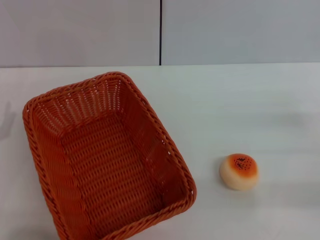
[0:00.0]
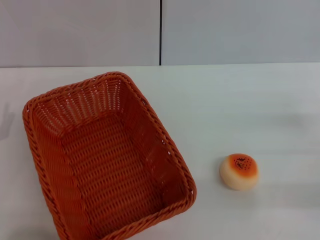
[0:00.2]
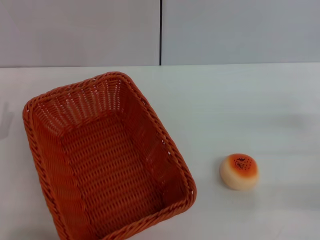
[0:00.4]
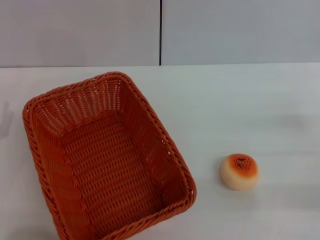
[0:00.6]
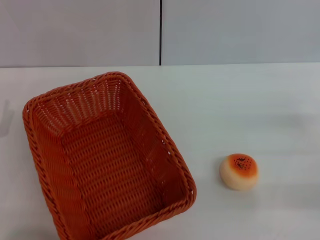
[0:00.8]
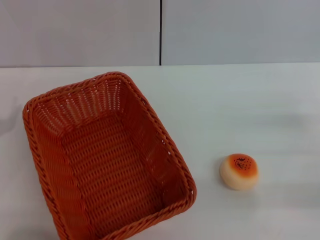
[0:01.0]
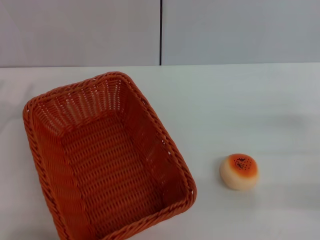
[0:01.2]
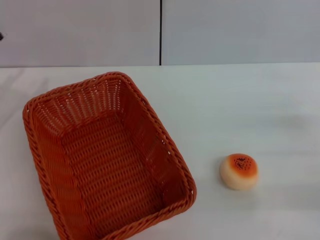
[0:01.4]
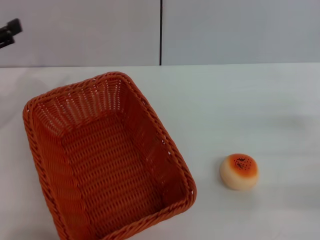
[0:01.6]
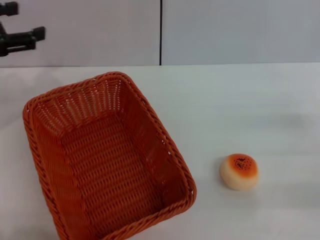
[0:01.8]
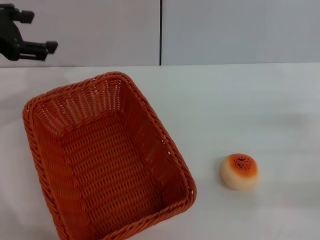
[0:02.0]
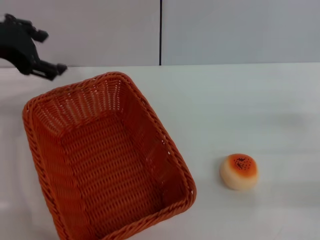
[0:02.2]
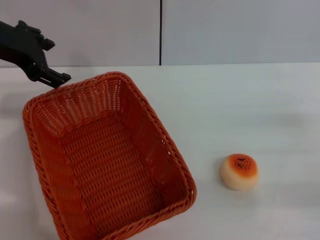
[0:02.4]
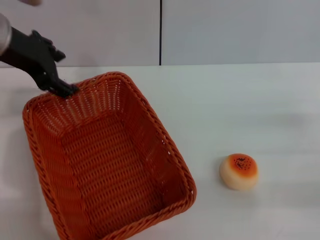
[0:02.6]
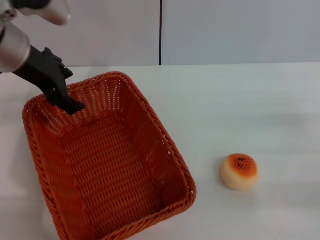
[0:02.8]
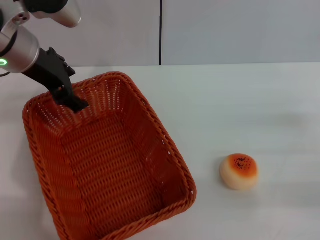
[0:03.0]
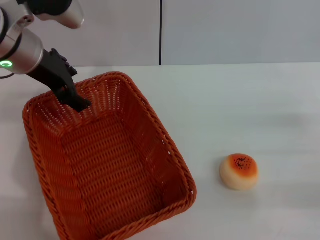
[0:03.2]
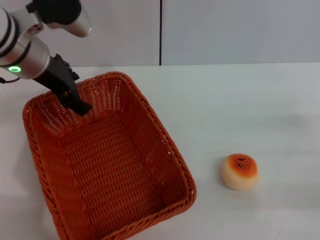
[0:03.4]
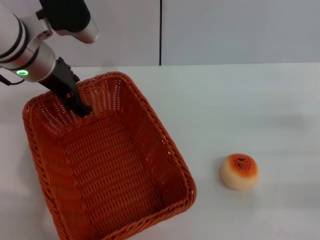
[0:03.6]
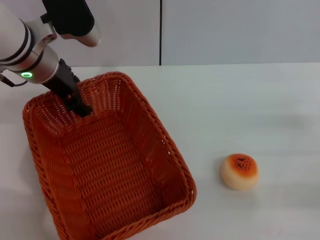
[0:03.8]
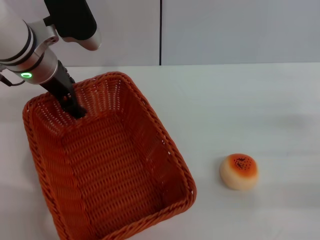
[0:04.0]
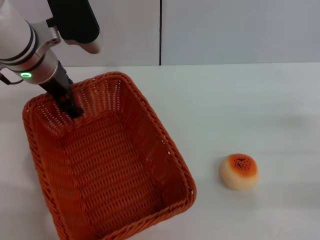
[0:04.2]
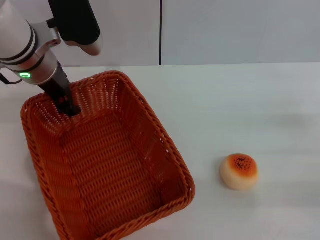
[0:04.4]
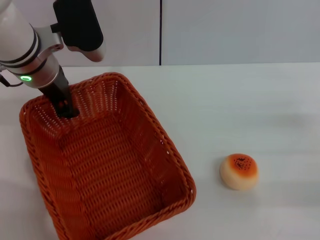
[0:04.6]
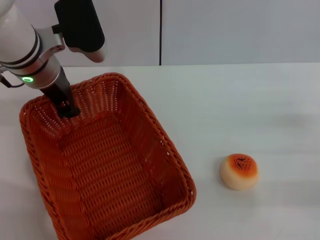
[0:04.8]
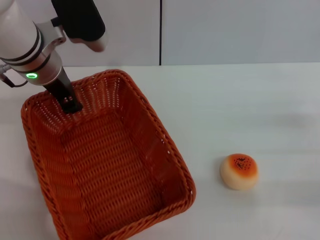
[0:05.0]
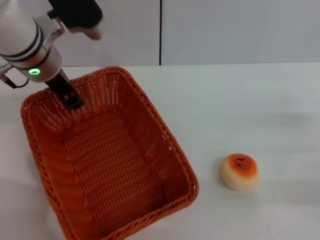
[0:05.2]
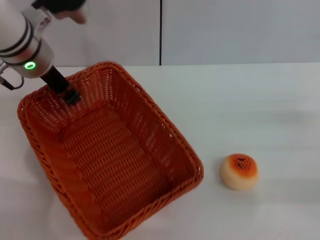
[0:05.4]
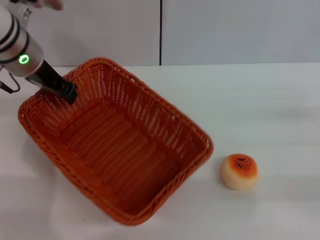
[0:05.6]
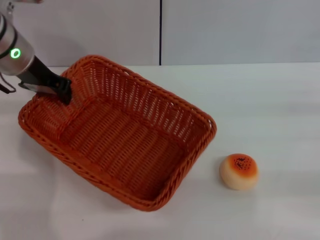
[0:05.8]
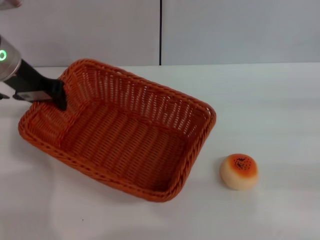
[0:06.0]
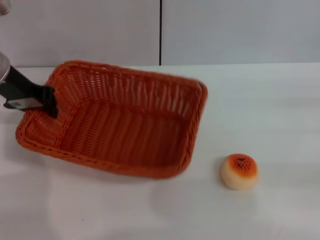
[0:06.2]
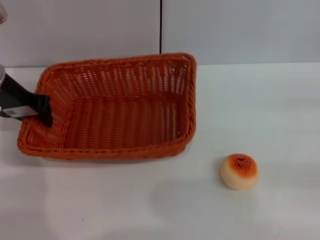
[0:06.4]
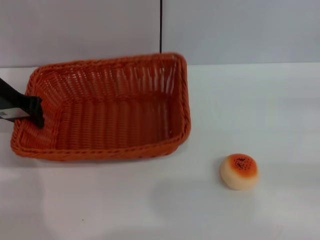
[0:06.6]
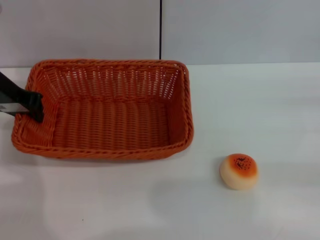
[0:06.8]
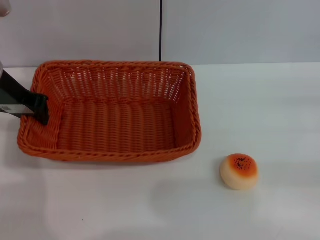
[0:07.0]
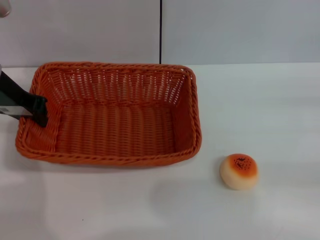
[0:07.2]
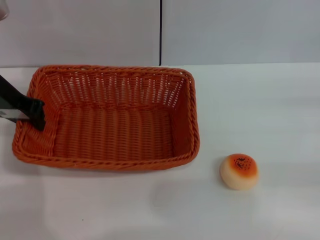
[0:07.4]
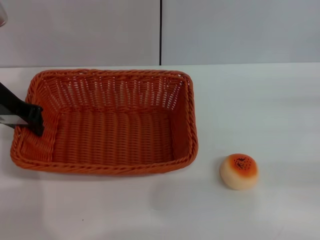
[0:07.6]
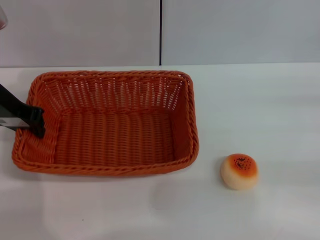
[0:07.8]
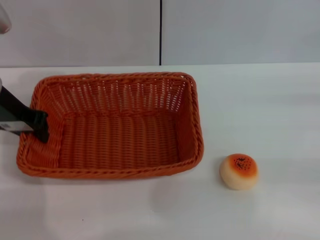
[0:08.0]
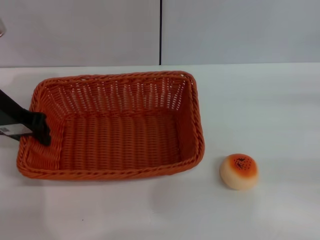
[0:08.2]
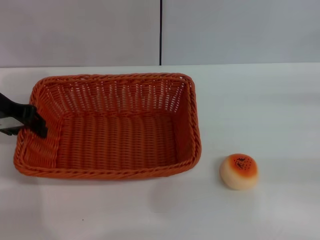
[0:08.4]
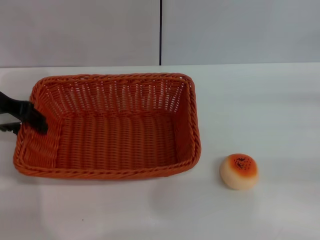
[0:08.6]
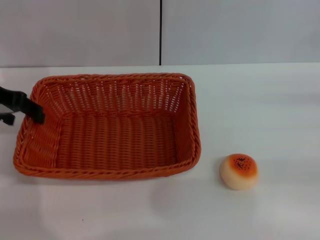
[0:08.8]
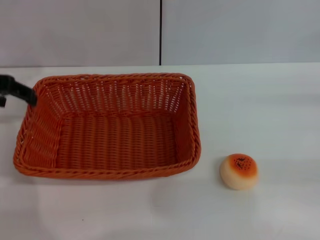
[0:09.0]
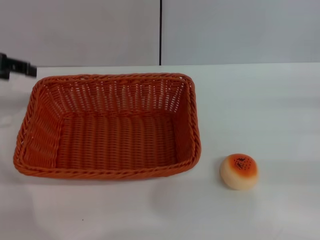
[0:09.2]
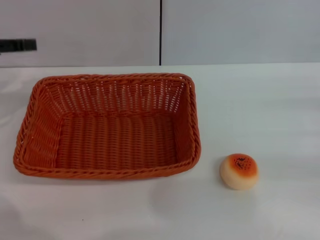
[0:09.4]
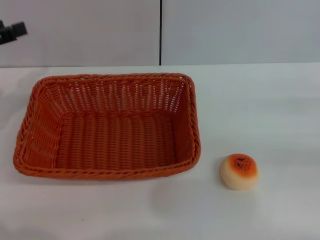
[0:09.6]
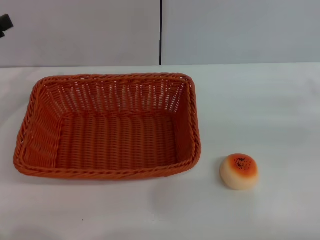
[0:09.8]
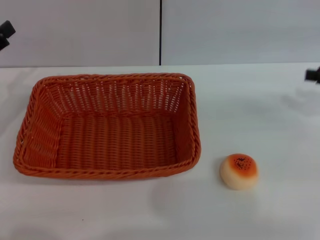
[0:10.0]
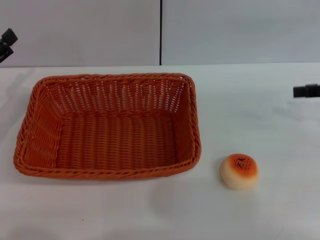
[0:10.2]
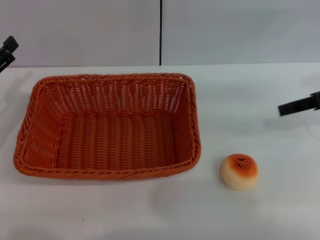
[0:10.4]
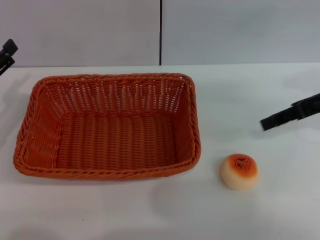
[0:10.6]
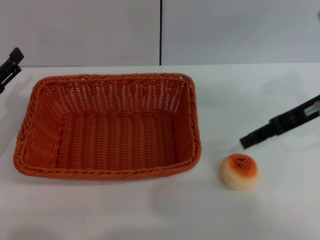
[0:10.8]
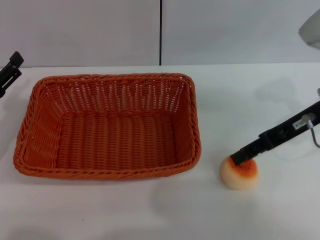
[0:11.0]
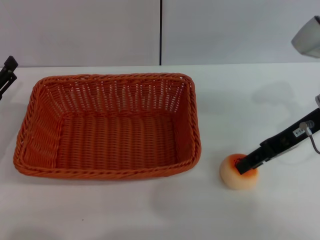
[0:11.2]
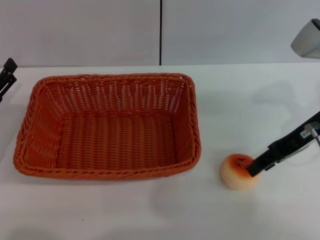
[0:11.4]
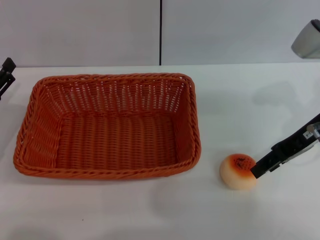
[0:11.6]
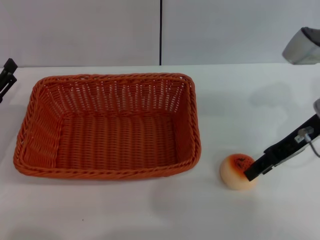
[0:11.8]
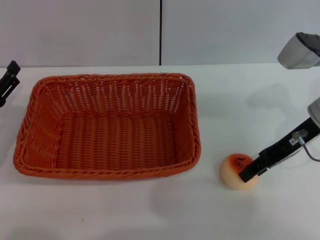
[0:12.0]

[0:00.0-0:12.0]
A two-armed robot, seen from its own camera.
Step, 0:00.0 to 0:09.0: Move the basket to the center of view with the left gripper.
0:01.6 to 0:03.0: The left gripper is displaced to the right by about 15 cm.
0:03.0 to 0:04.4: The left gripper changes place by some 5 cm.
0:04.4 to 0:06.0: The left gripper travels to the left by roughly 5 cm, and closes its fingers, while the right gripper travels to the right by approximately 5 cm.
0:06.0 to 0:07.6: The grippers make only small movements.
0:07.6 to 0:09.0: The left gripper goes some 5 cm to the left, and opens its fingers.
0:09.0 to 0:10.4: The right gripper shifts some 15 cm to the left, forward and upward; the left gripper travels downward and backward by about 15 cm.
0:10.4 to 0:12.0: The right gripper travels to the left by approximately 10 cm.

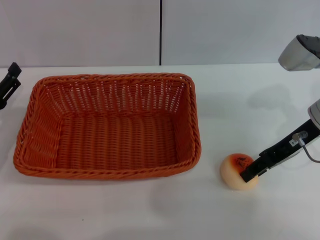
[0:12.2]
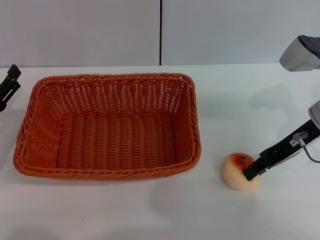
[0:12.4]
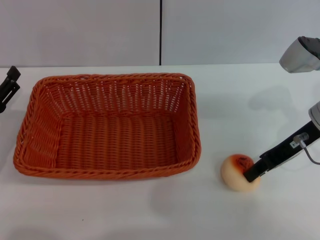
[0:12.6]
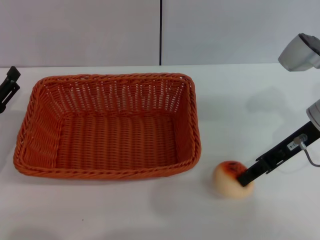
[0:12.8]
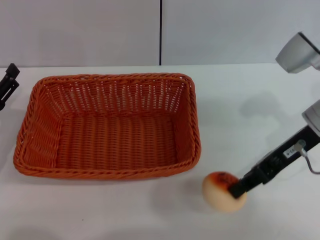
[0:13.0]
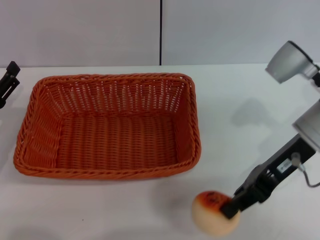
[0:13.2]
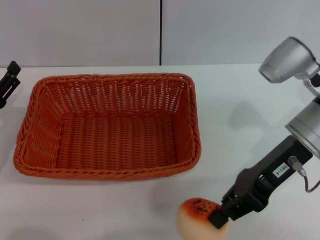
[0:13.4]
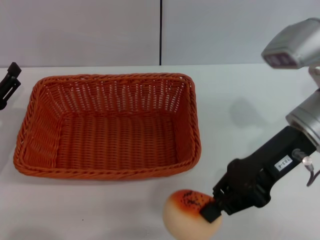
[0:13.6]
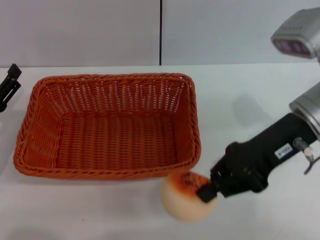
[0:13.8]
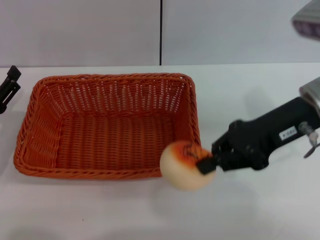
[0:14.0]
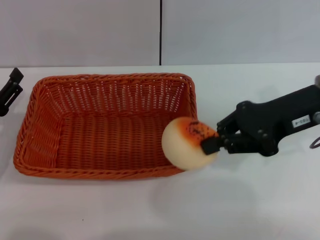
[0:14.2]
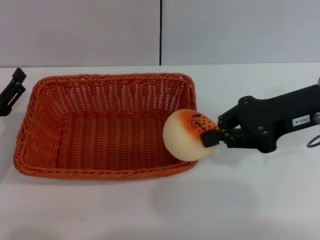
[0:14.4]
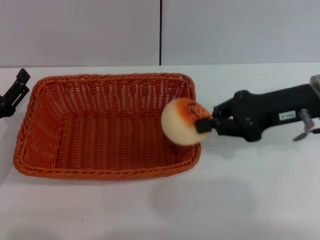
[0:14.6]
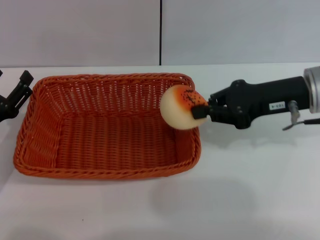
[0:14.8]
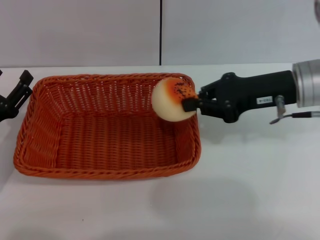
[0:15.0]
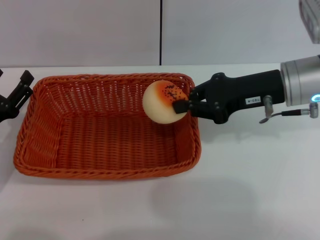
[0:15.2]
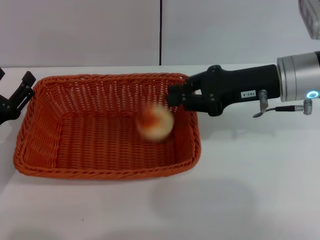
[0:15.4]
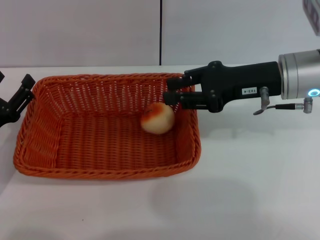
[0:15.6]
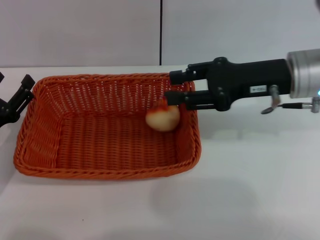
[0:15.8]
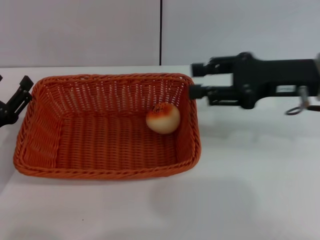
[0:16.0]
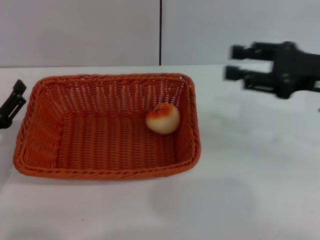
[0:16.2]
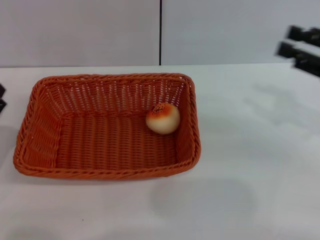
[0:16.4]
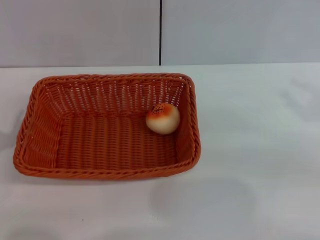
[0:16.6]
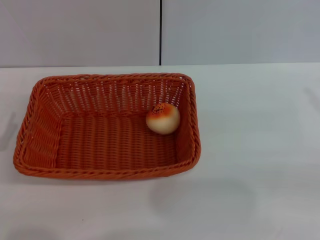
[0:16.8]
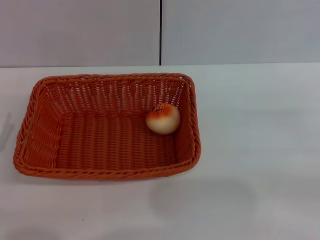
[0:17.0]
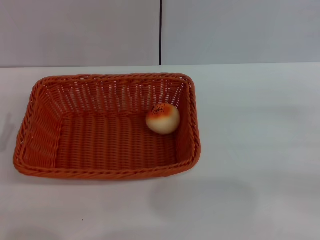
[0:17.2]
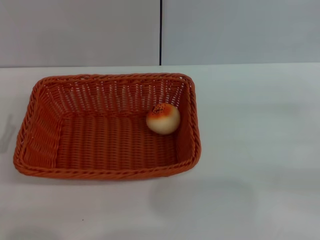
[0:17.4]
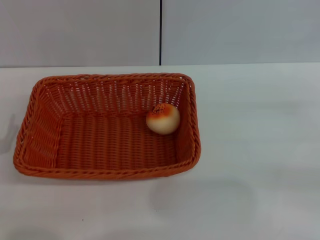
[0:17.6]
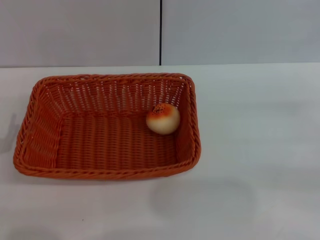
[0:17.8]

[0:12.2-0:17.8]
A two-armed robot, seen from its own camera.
Step, 0:13.8 to 0:16.0: Place the egg yolk pastry into the basket with the right gripper.
0:12.2 to 0:13.6: The right gripper goes some 5 cm to the left, and closes up.
0:15.0 to 0:16.4: The right gripper heads to the right and backward, covering about 15 cm, and opens its fingers.
0:16.4 to 0:17.8: The right gripper shifts approximately 10 cm to the right and downward.

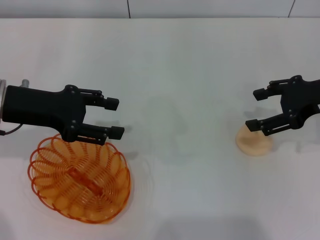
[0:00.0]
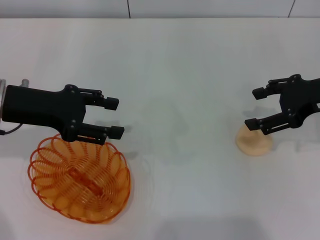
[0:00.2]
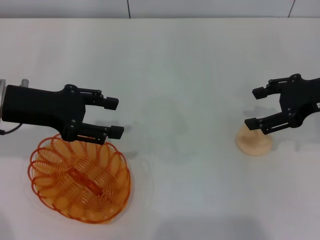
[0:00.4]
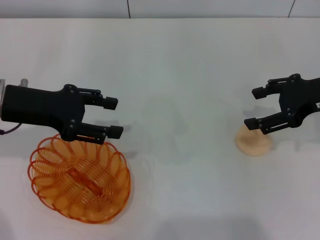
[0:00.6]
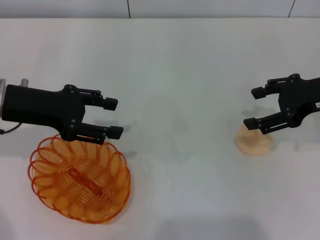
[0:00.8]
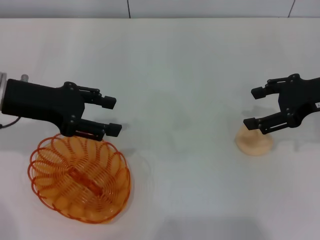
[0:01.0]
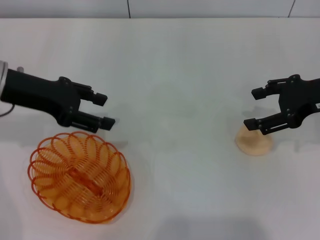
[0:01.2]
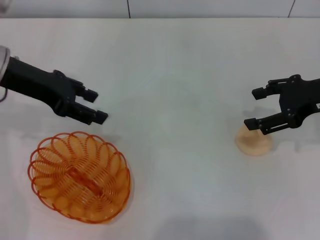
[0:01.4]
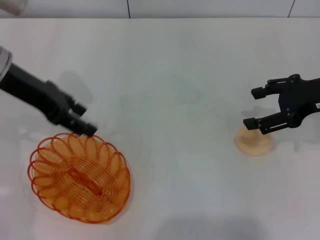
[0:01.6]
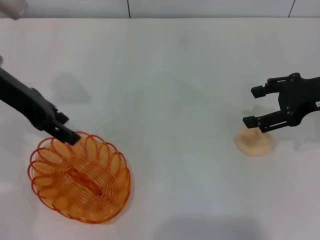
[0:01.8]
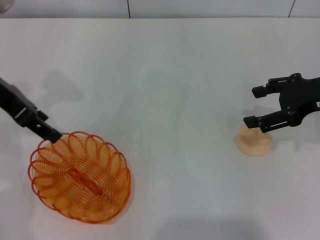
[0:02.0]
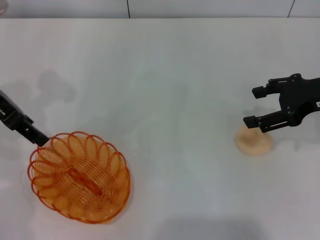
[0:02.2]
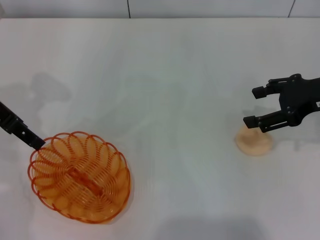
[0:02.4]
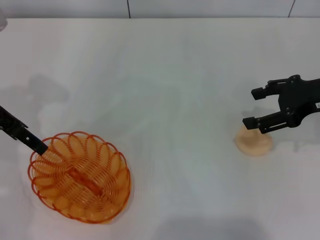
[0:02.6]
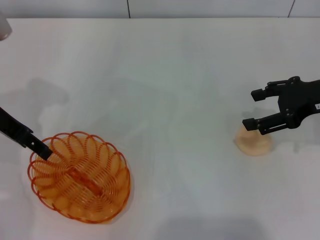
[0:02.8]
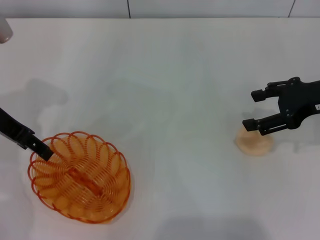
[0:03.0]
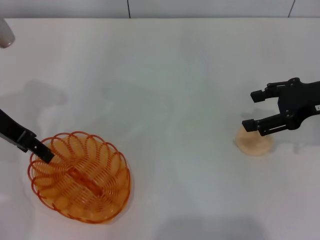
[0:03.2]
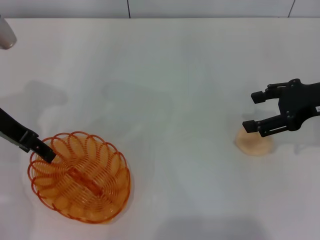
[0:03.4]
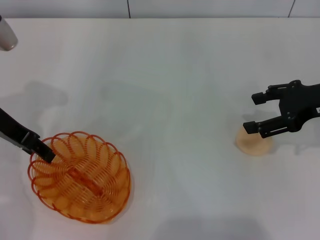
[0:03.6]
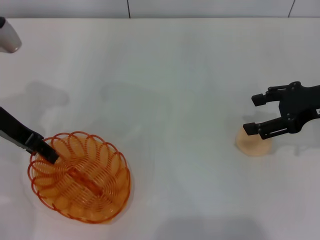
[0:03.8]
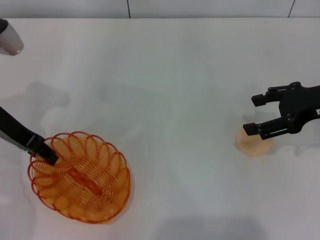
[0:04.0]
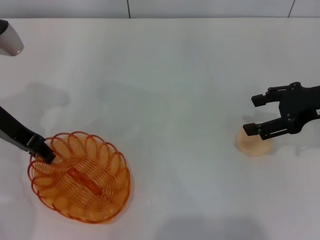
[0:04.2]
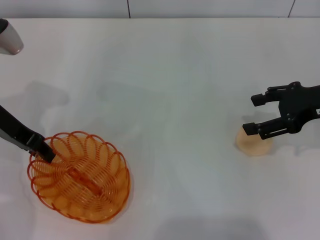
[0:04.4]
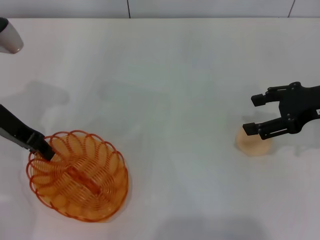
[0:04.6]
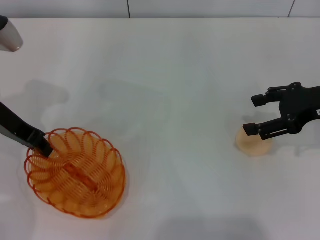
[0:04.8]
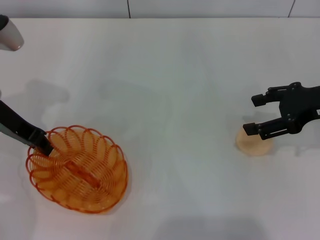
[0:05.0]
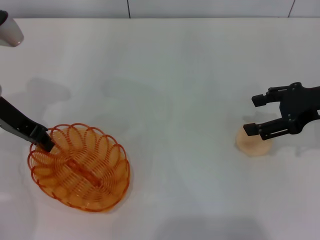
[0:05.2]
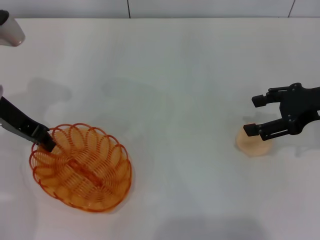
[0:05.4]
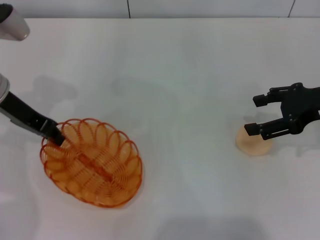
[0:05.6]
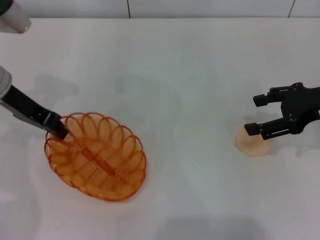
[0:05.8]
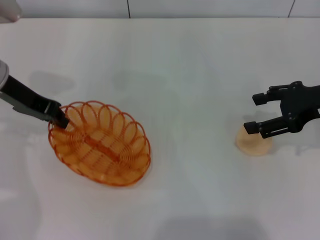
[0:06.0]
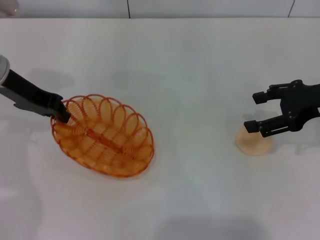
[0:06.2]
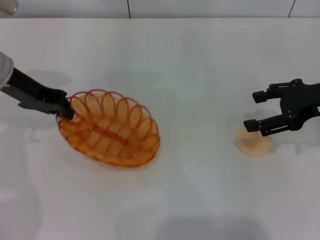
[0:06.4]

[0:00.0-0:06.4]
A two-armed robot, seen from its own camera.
0:00.0 to 0:01.6: The left gripper shifts by approximately 5 cm.
0:03.2 to 0:04.8: The left gripper closes up.
